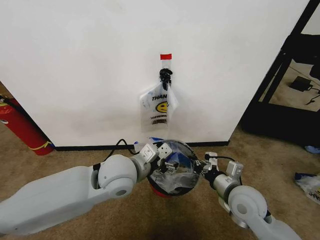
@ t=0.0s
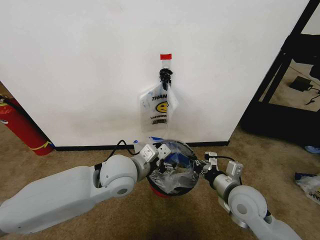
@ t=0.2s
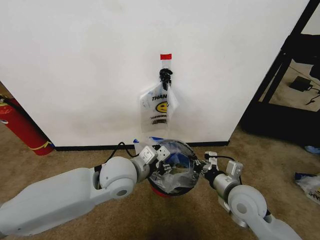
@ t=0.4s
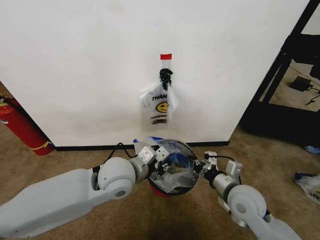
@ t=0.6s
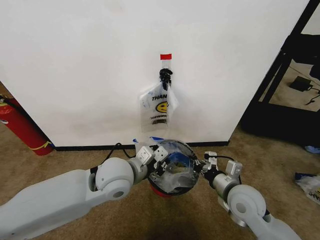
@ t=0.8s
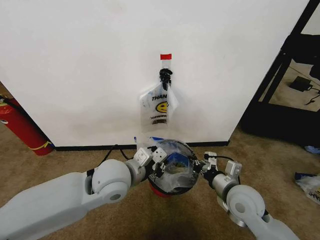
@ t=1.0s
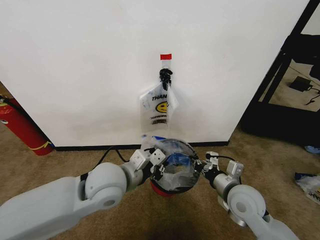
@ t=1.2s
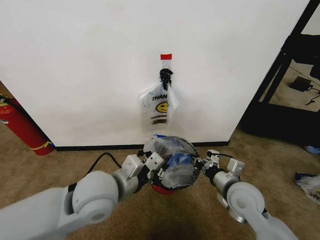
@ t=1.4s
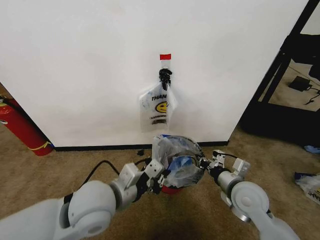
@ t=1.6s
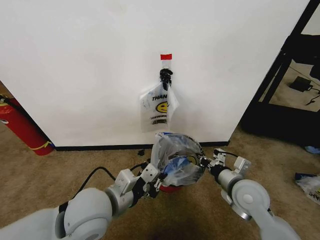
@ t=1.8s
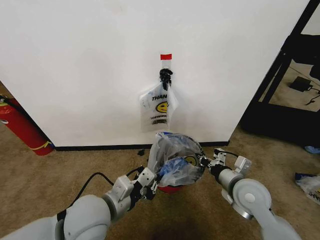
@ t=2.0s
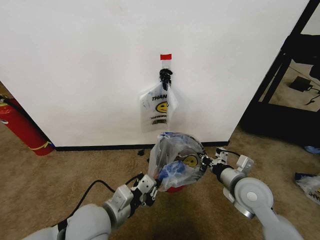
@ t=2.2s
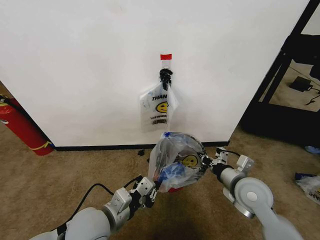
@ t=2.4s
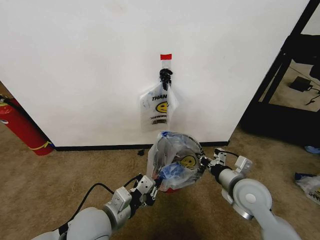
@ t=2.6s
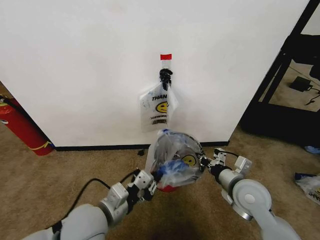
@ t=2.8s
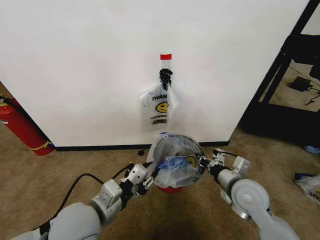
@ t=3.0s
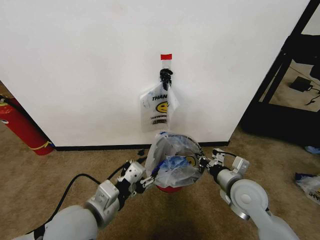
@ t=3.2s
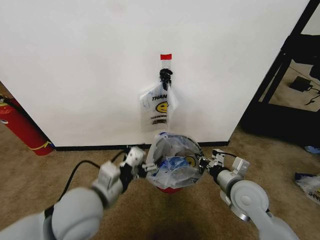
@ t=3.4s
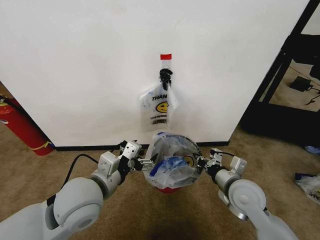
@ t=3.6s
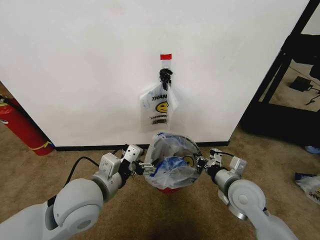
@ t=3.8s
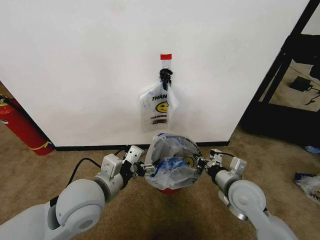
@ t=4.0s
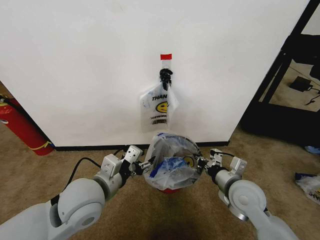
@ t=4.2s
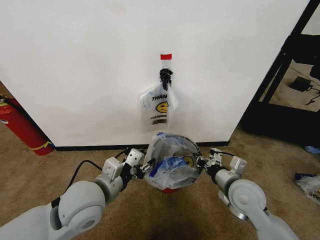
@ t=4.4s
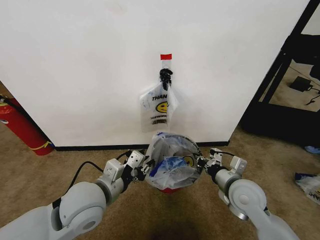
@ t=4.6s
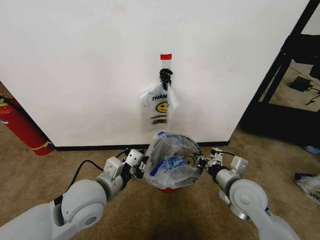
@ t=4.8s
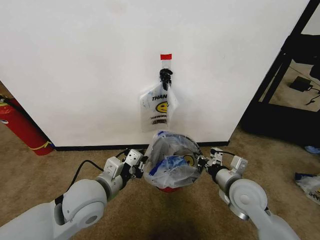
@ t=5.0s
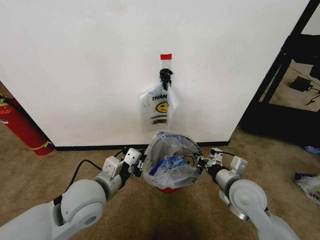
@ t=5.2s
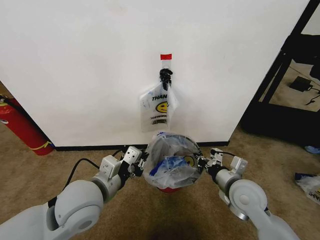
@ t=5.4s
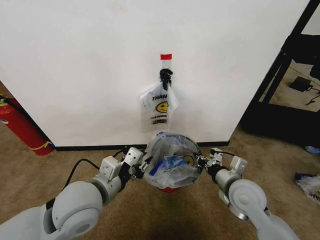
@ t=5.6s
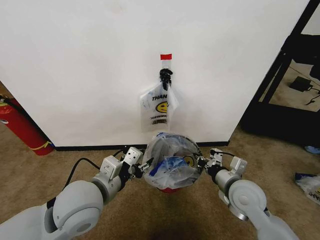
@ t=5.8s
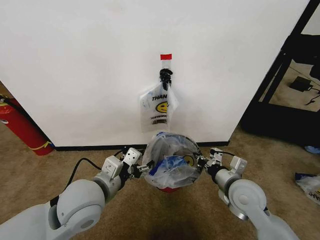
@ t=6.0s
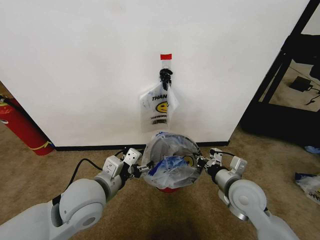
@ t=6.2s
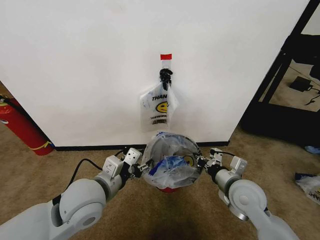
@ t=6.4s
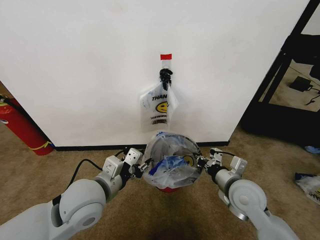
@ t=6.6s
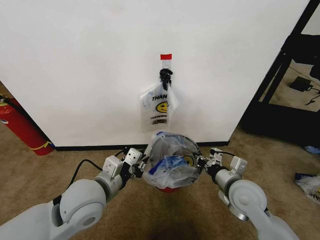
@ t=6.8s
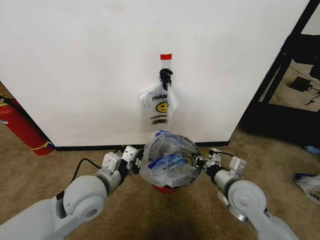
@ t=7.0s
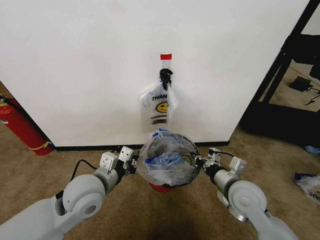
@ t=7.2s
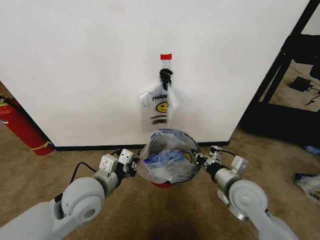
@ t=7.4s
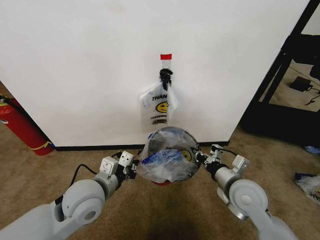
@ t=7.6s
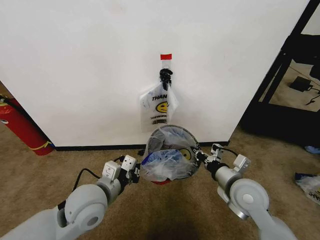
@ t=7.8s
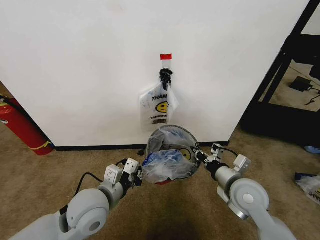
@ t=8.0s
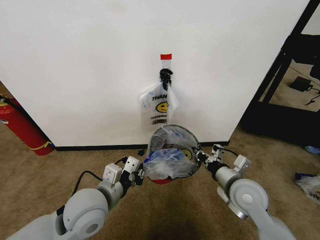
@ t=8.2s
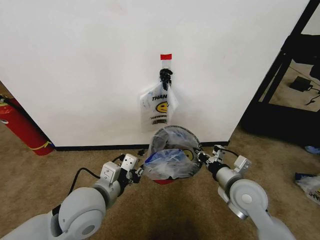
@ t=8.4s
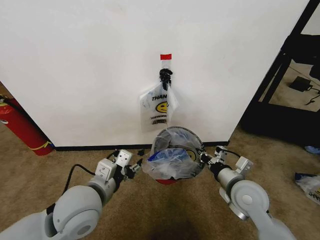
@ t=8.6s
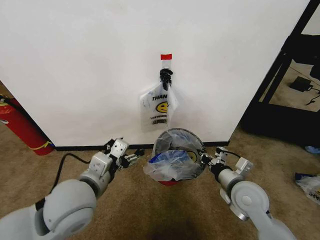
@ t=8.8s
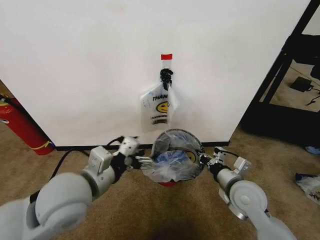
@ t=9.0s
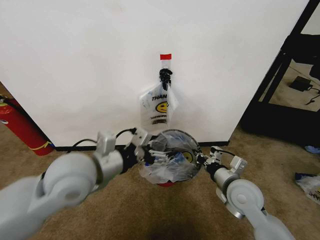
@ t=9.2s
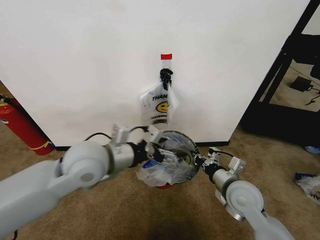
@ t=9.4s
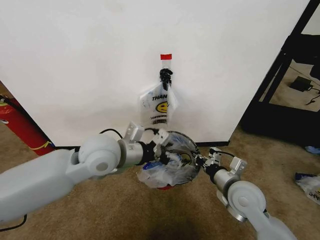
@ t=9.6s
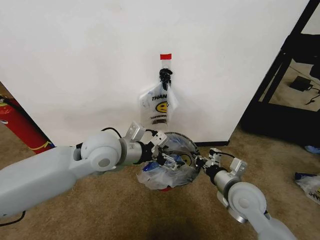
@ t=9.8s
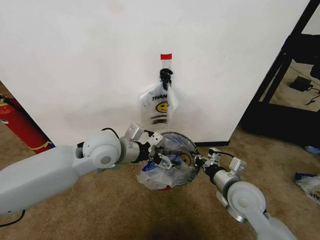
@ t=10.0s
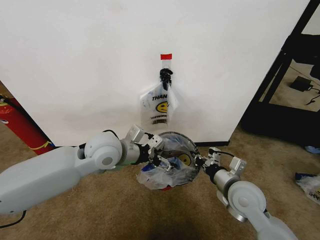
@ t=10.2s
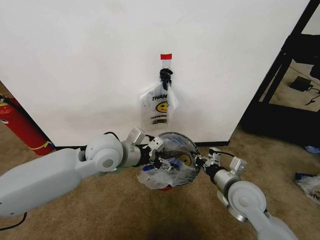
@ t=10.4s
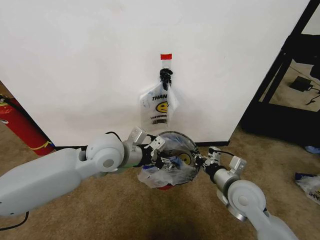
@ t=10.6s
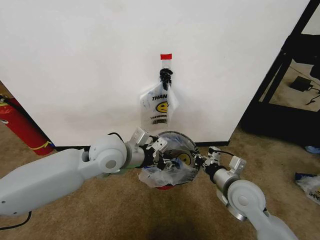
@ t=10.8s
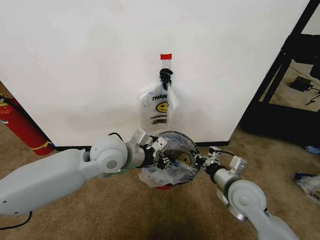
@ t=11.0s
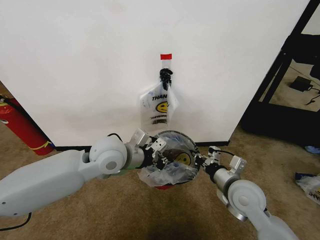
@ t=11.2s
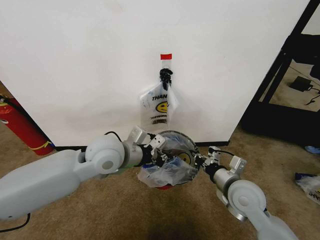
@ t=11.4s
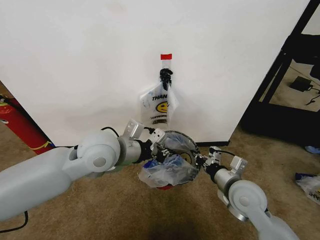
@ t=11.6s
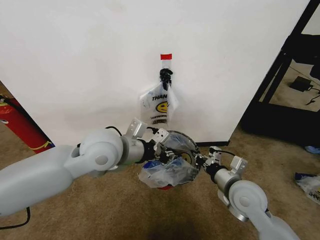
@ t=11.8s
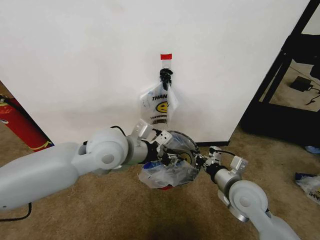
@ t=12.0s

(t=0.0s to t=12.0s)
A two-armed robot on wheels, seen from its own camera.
Task of the whole recording: Pick up the garbage bag from the wall and place it over the trash bin.
t=0.0s - t=1.6s: The left gripper is displaced backward by roughly 5 cm, and closes up.
t=1.6s - t=3.0s: The left gripper changes place by about 5 cm, and opens up.
t=3.0s - t=4.4s: The left gripper opens, then closes again.
t=4.4s - t=6.0s: The left gripper opens up.
t=6.0s - t=7.6s: The left gripper closes up.
t=7.6s - t=9.0s: The left gripper moves upward, some 10 cm, and opens up.
t=9.0s - t=10.4s: The left gripper heads forward, covering some 15 cm.
t=10.4s - t=12.0s: The left gripper moves about 5 cm, and closes and opens again.

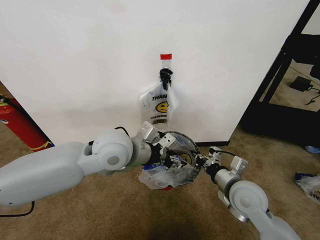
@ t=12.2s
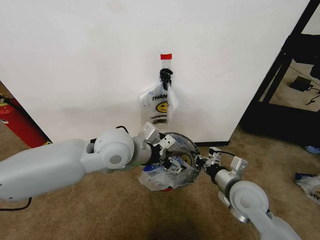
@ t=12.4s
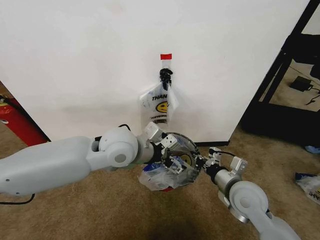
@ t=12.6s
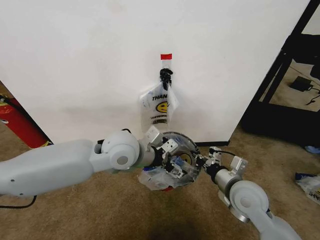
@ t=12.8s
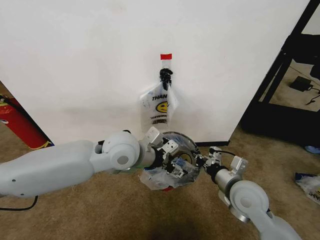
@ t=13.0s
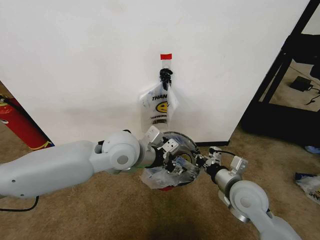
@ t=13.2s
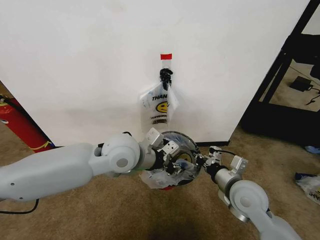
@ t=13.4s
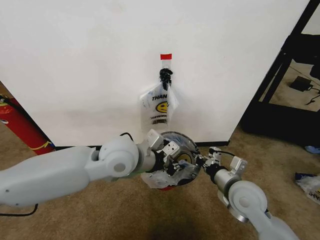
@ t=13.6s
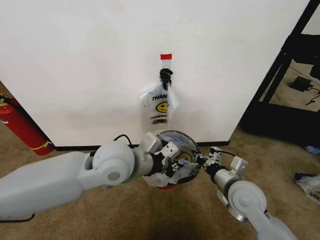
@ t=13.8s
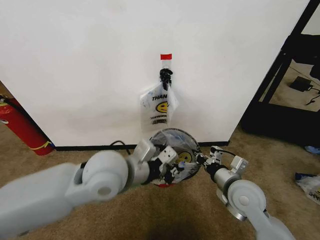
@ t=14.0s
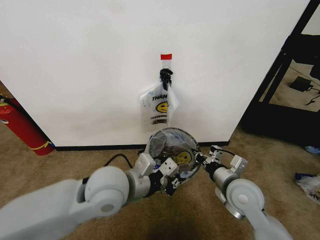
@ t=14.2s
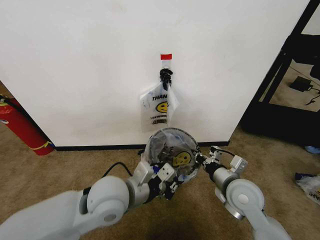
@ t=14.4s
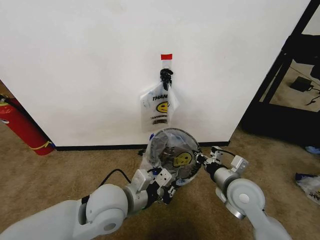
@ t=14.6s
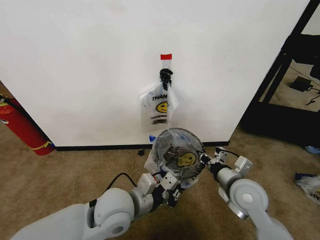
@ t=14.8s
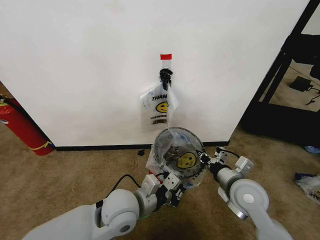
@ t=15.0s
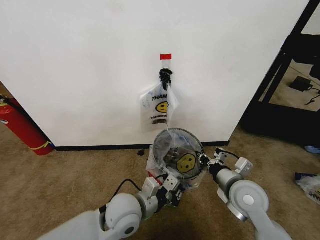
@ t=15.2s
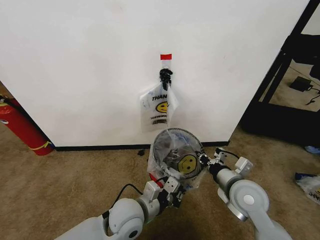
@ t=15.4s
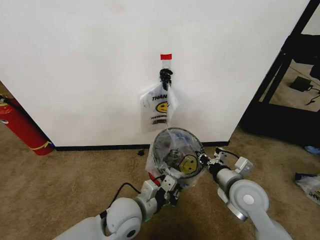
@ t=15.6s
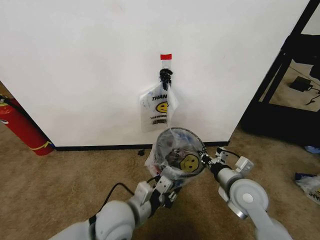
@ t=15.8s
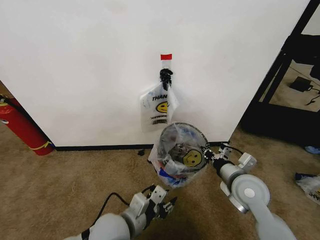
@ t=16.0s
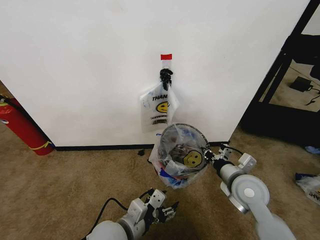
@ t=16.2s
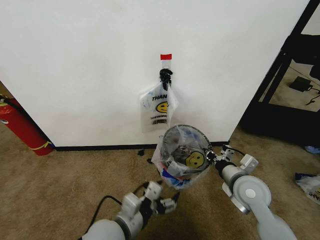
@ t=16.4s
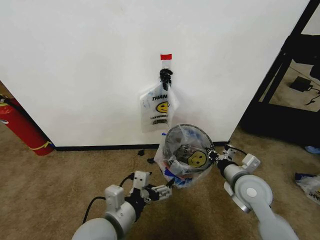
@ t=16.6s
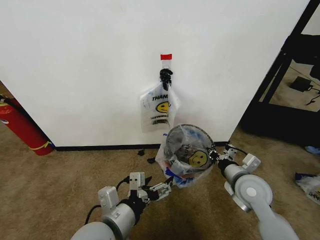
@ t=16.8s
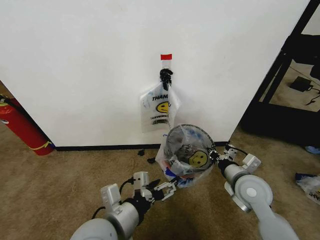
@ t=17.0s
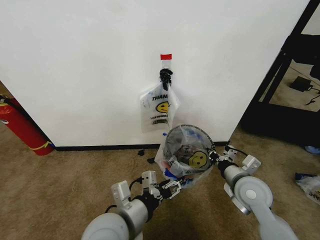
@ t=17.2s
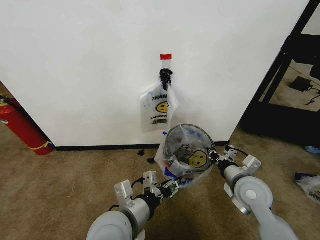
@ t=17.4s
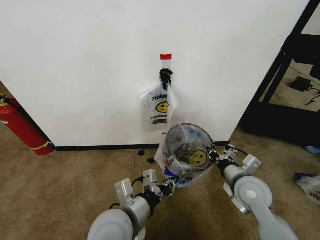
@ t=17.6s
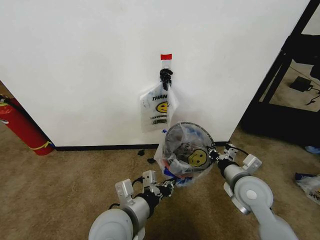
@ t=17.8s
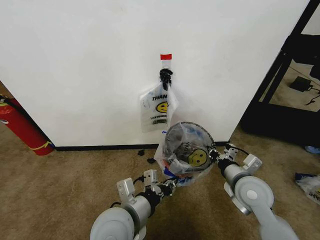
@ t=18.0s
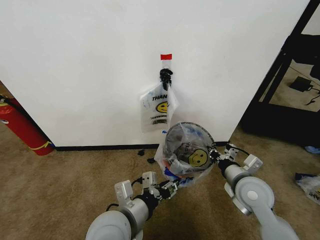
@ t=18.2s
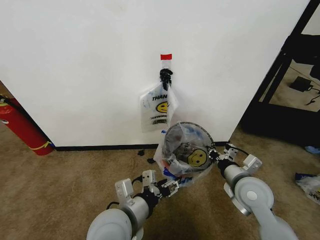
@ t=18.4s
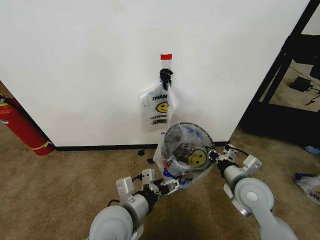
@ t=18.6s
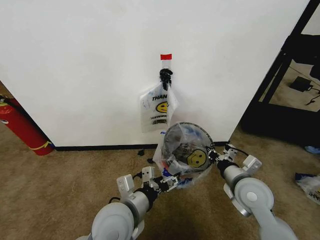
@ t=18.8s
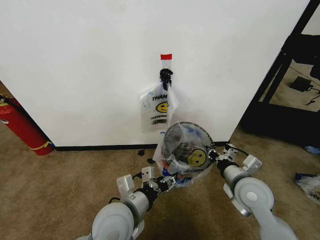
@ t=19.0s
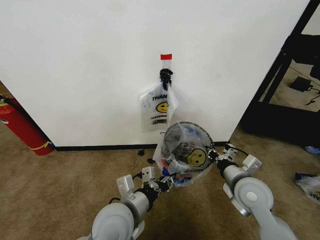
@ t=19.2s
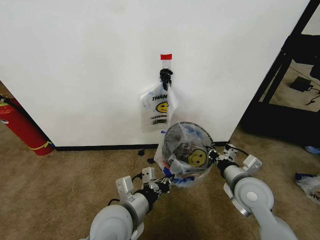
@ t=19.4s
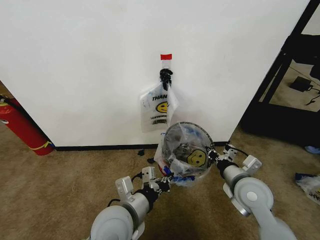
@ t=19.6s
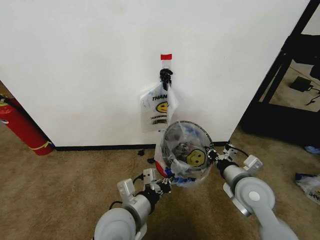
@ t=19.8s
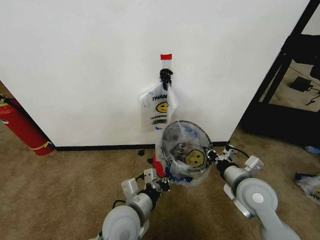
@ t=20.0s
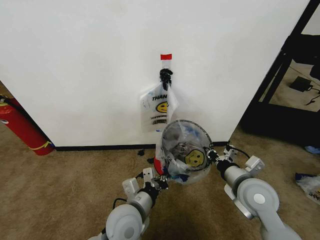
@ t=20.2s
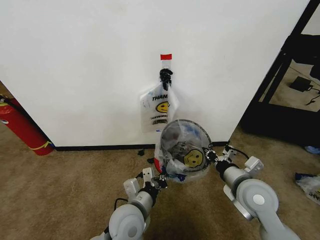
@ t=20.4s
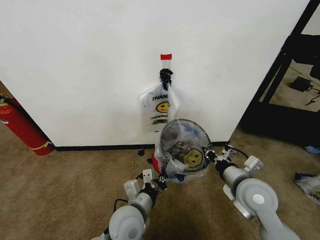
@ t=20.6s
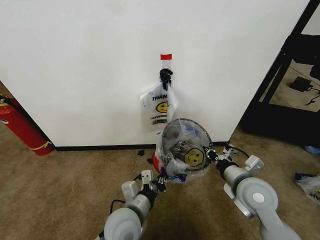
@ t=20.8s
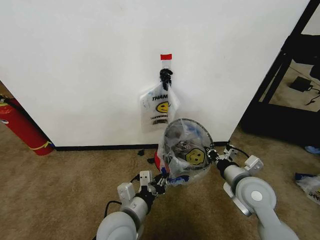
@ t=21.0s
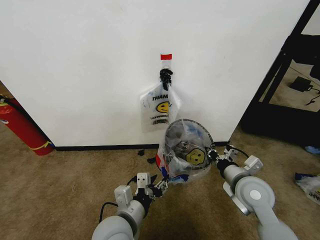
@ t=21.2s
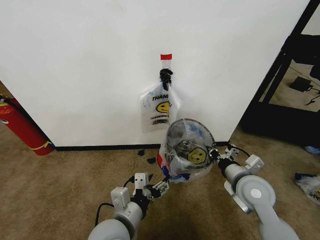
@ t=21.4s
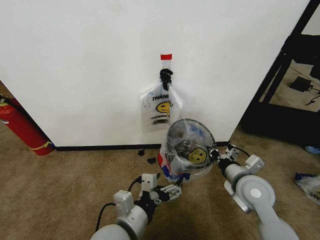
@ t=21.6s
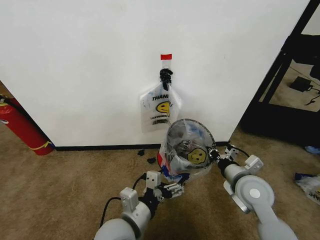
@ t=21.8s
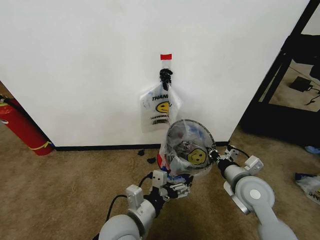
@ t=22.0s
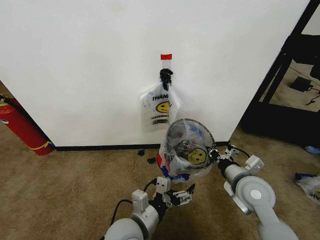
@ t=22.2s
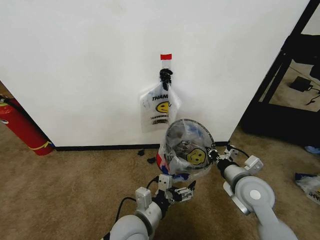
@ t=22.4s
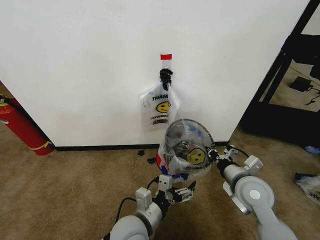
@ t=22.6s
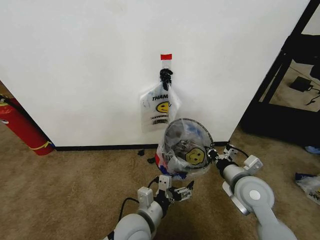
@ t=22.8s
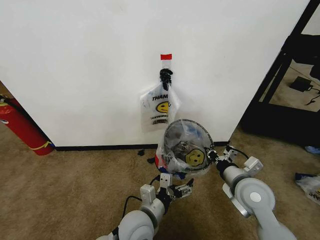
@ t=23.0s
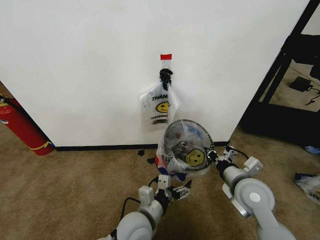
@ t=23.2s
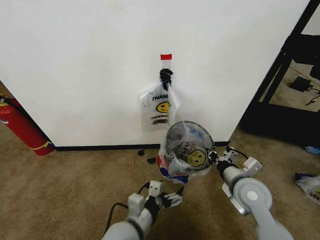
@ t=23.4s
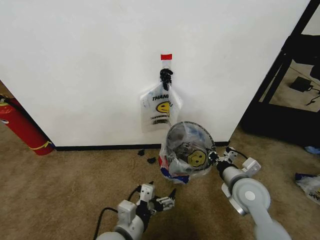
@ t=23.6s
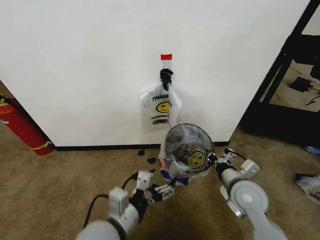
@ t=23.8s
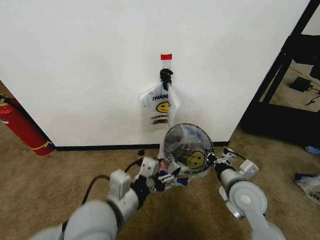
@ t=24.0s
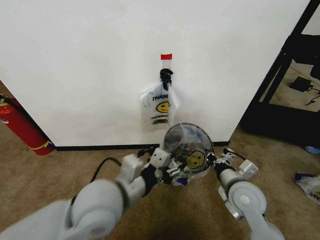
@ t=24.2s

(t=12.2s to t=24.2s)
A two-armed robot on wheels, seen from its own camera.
Task of the whole recording: Pick up the garbage bag from the wall and place it over the trash bin.
t=12.2s - t=13.8s: The left gripper closes up.
t=13.8s - t=15.2s: The left gripper heads downward and backward, covering roughly 15 cm.
t=15.2s - t=16.6s: The left gripper shifts some 10 cm backward and upward, and opens its fingers.
t=16.6s - t=18.2s: The left gripper closes.
t=18.2s - t=19.8s: The left gripper closes its fingers.
t=19.8s - t=21.2s: The left gripper opens up.
t=21.2s - t=22.6s: The left gripper opens up.
t=22.6s - t=24.2s: The left gripper heads upward, covering some 15 cm, and closes its fingers.
